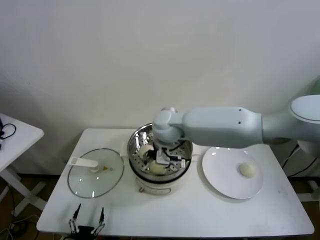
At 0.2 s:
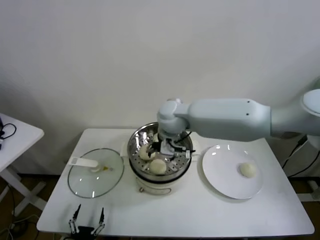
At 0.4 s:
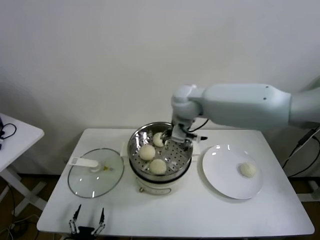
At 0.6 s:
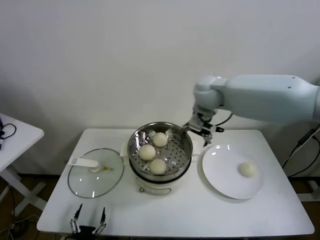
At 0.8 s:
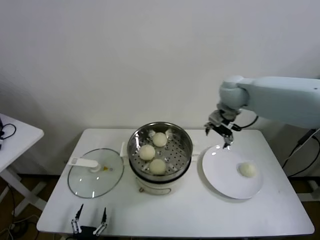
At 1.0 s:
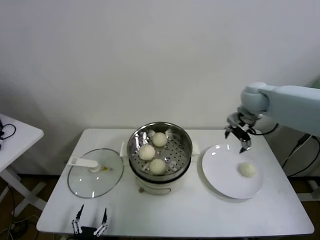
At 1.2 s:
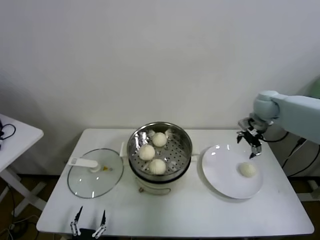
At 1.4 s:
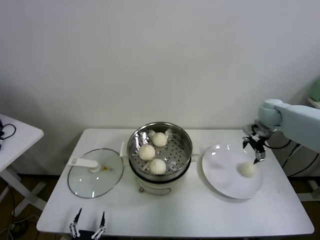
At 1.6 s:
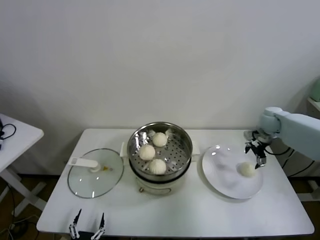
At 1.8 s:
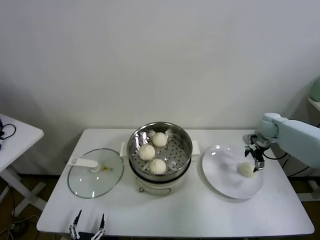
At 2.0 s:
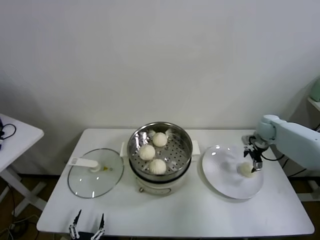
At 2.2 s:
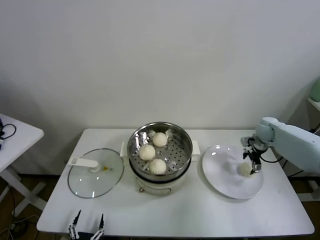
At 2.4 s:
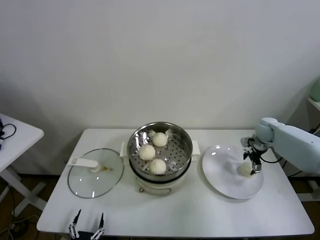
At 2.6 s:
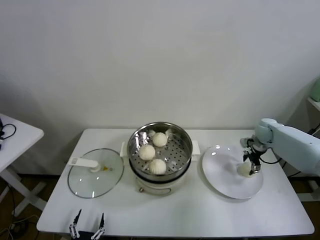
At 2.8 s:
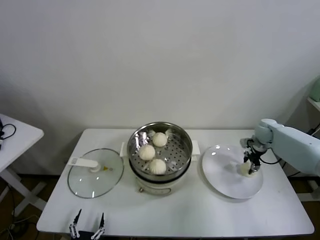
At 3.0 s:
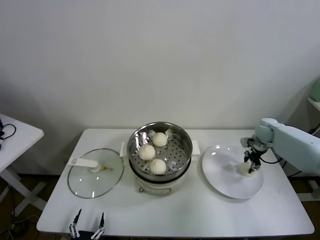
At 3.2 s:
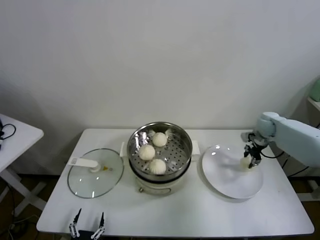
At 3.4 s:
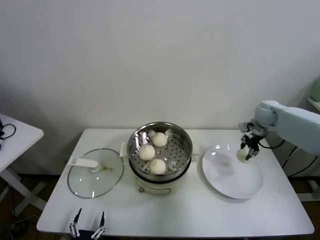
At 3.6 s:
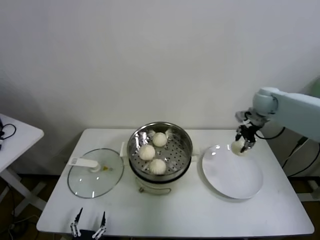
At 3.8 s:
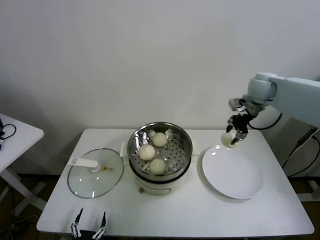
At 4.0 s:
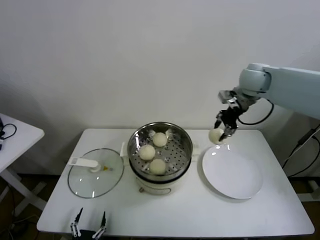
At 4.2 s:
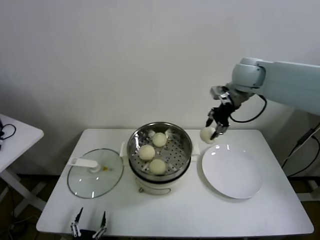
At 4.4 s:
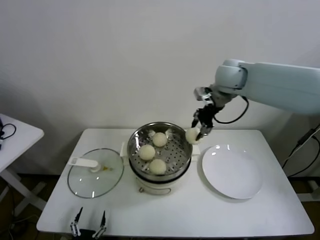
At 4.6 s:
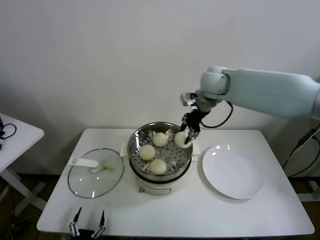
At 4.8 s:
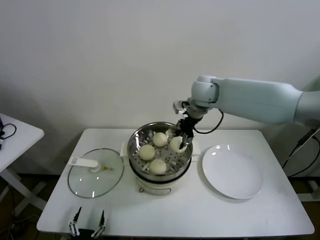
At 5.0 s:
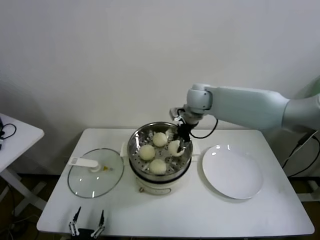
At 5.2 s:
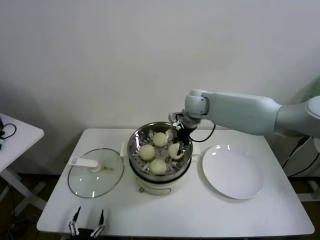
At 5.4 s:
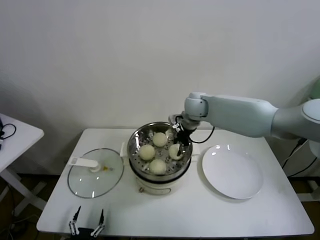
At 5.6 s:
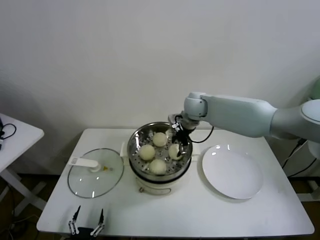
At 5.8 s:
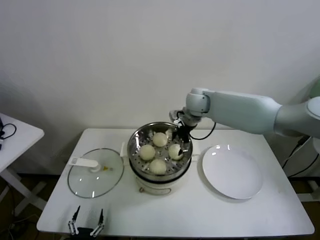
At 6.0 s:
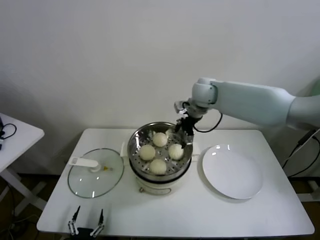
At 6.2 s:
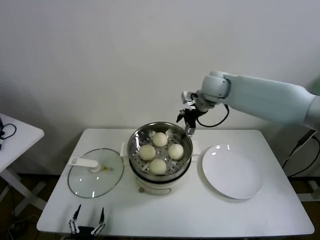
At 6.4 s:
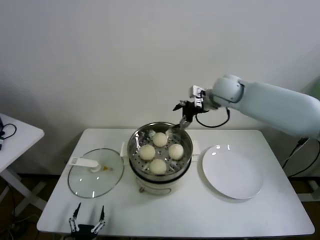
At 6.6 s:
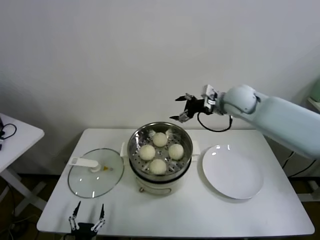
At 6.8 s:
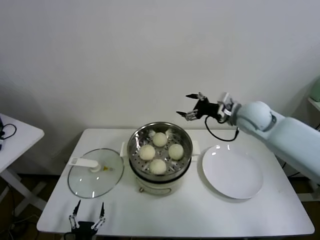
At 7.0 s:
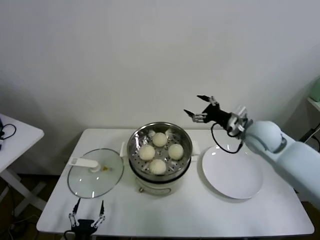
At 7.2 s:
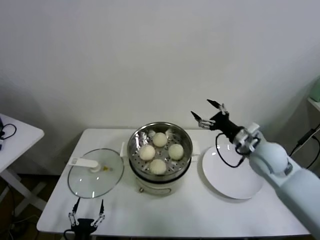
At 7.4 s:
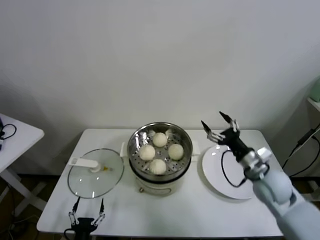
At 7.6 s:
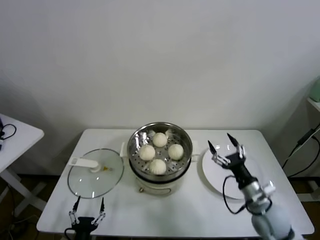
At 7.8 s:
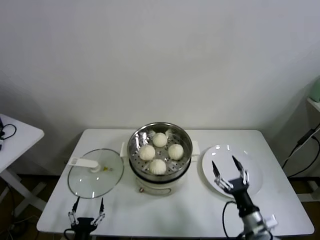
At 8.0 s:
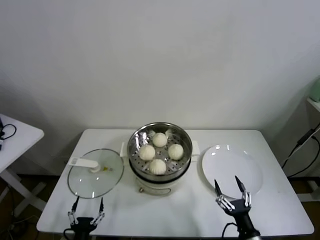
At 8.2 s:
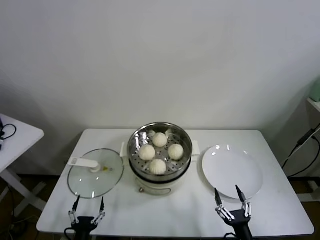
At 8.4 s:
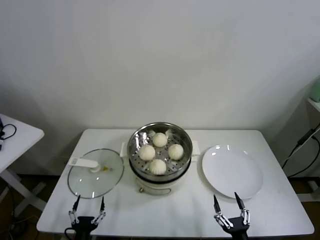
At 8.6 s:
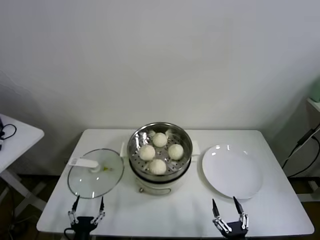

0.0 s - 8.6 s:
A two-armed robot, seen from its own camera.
Task of the whole recording: take steamed baozi put them in steamer.
Step, 0.2 s - 2.6 s: Grasp the baozi in the plate with right gripper.
Step, 2.8 s - 5.6 s: Place the baozi on the steamer with right gripper.
0.0 s - 1.4 s: The right gripper is displaced to the right by some 40 cm.
1.4 s - 2.8 s: The right gripper moves downward, about 10 cm, and closes.
2.8 s - 4.4 s: The right gripper heads upward and to the left, covering some 35 cm.
4.4 s - 5.8 s: The right gripper heads downward and to the left, covering approximately 15 cm, and opens up.
5.8 s - 7.2 s: The right gripper goes some 25 cm to the right and backward.
7.2 s - 8.6 s: The right gripper goes approximately 40 cm backward and downward.
